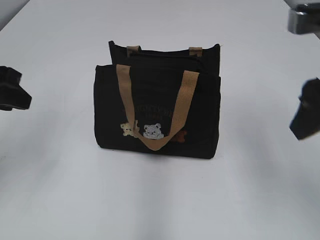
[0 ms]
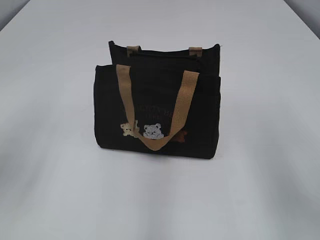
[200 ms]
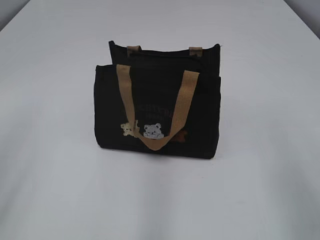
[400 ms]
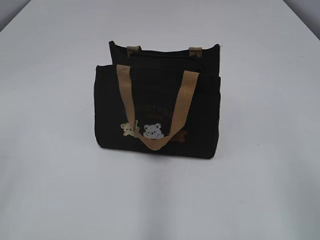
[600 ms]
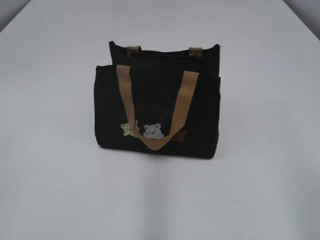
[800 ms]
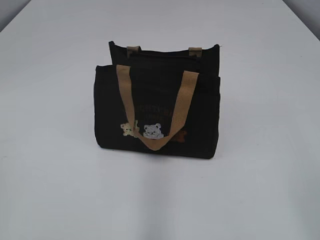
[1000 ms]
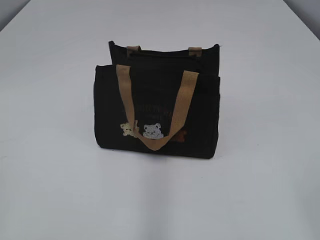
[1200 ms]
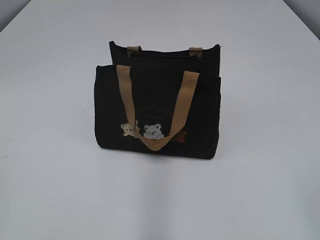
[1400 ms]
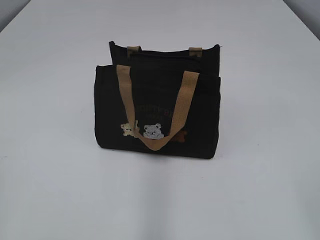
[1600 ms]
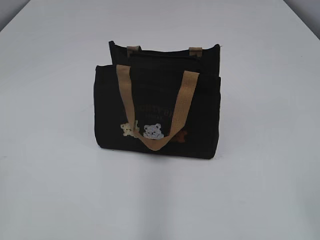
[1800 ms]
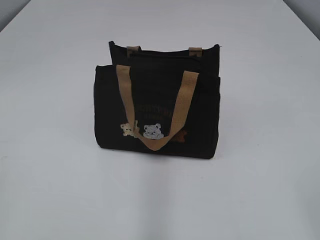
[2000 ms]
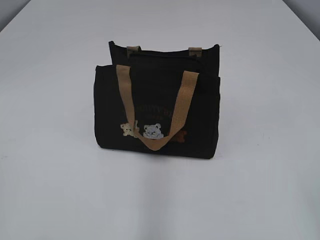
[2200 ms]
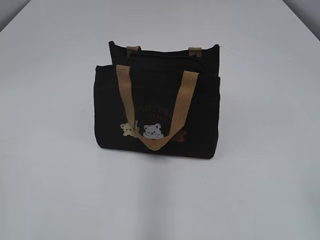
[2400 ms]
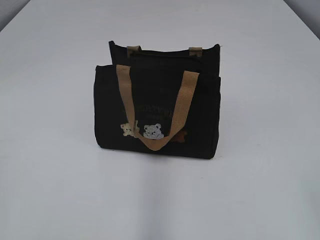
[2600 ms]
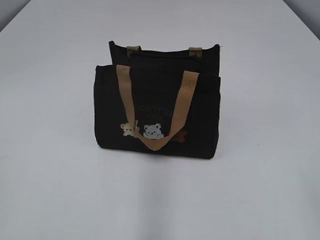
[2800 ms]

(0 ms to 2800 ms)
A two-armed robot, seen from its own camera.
0 ms - 1400 ms: Both grippers travel together backward, some 25 cm.

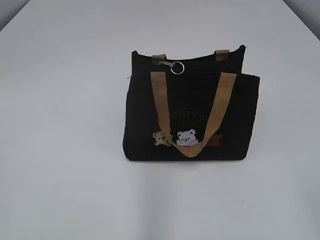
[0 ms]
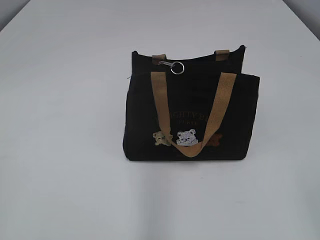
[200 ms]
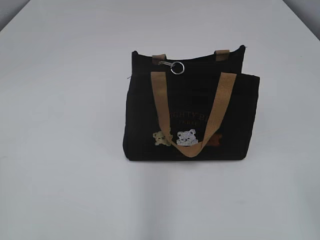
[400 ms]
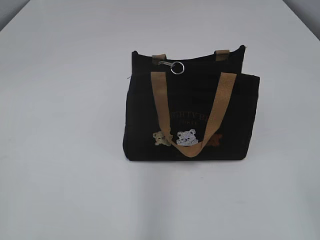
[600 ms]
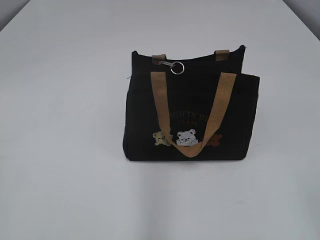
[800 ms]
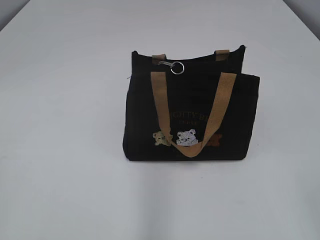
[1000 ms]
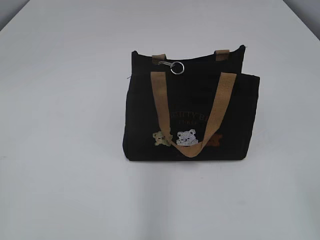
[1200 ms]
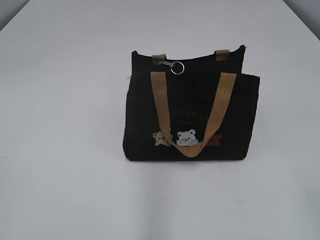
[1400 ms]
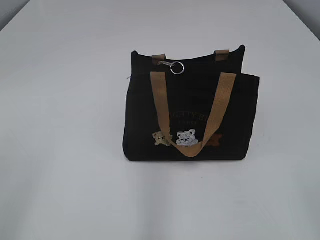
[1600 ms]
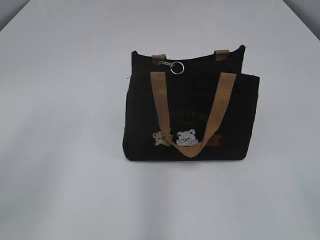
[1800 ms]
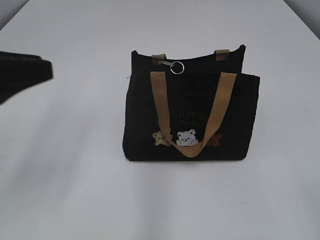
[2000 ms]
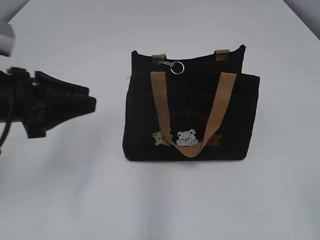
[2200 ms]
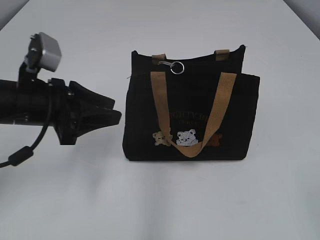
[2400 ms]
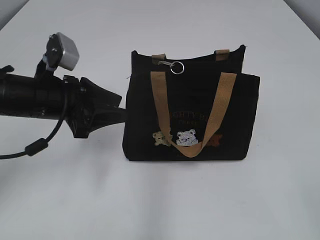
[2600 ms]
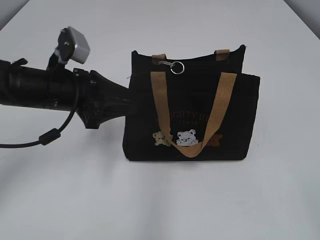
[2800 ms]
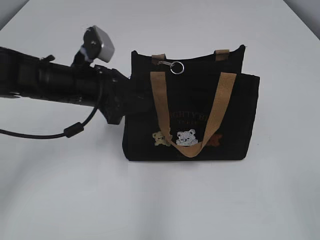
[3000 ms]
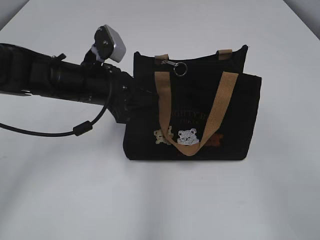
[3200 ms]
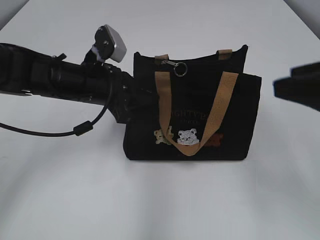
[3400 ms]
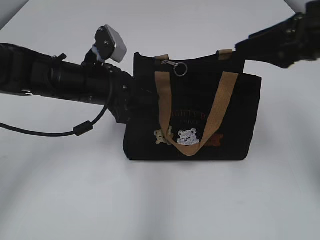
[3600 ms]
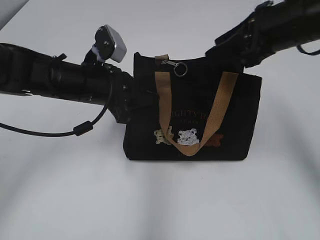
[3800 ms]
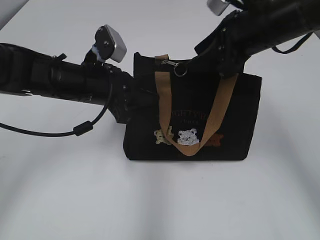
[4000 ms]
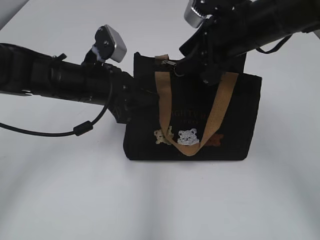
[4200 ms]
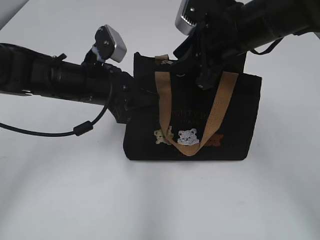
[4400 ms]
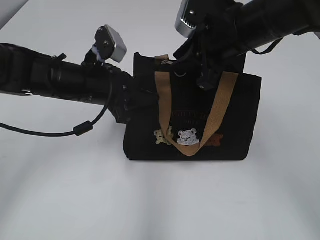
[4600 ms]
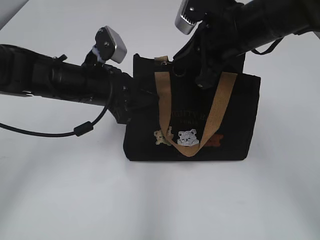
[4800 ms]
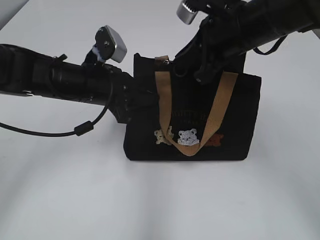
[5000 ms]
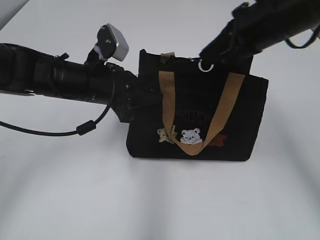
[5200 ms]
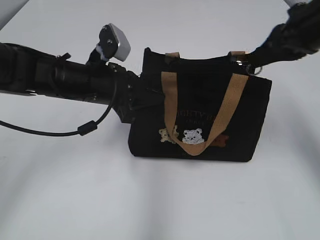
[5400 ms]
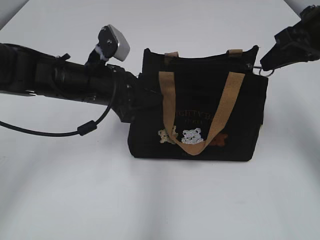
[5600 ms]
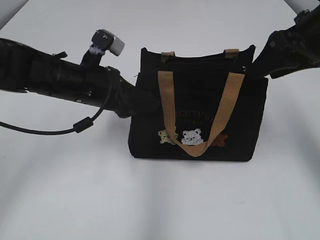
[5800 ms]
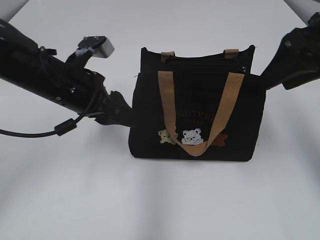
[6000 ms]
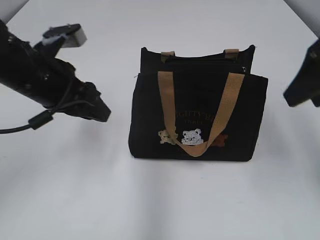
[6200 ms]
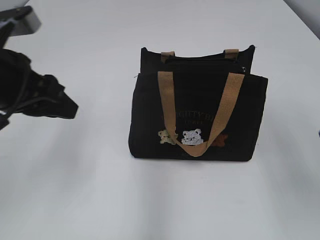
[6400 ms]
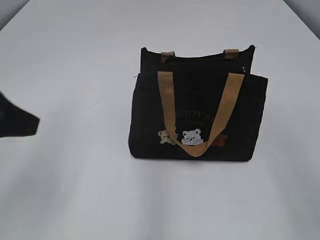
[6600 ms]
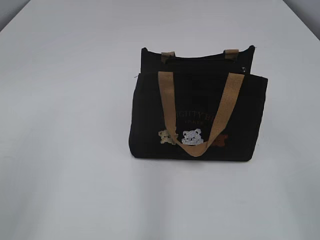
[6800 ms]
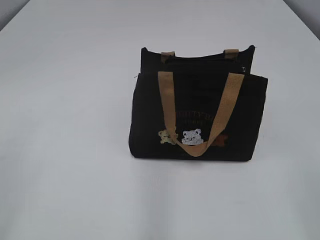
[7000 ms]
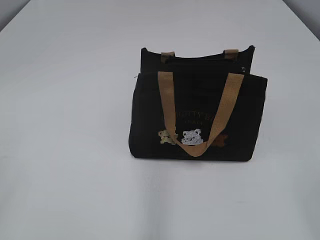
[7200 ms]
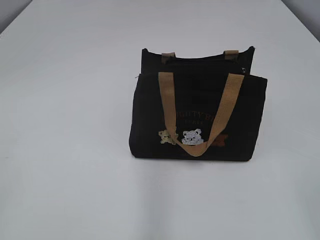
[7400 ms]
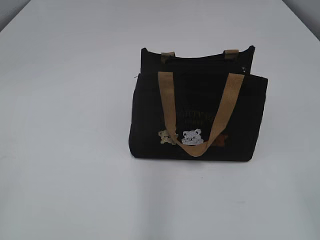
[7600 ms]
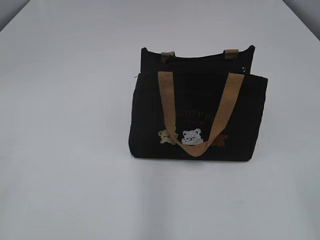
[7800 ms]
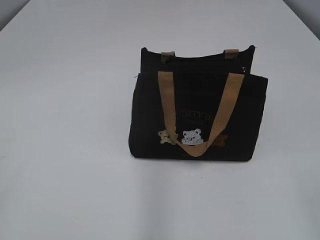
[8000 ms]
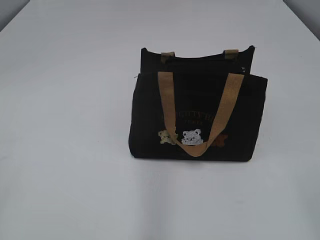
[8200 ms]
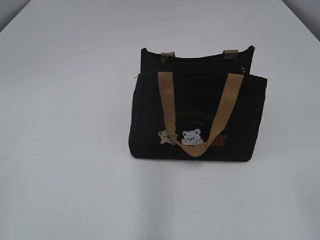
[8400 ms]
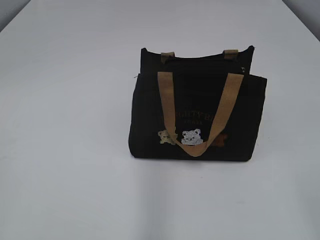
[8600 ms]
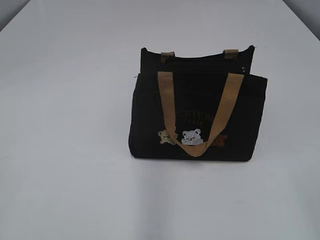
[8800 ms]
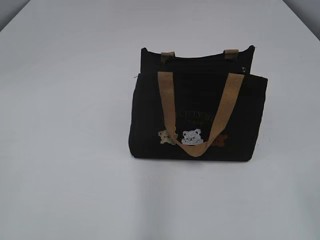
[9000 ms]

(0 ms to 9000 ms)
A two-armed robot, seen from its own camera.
Step, 0 ms - 5600 ms: Pull open the zipper with your right hand.
Step, 5800 ms - 6000 ms: Hold the bag with your left hand.
1600 ms - 3000 ms: The left gripper goes approximately 35 cm forward and to the right, and opens up.
3000 ms - 4400 ms: The left gripper closes its fingers. The right gripper travels forward and to the left by some 40 cm.
4400 ms - 6000 ms: The left gripper opens its fingers, while the right gripper heads to the right, covering roughly 10 cm, and closes, then opens again.
6000 ms - 7600 ms: The left gripper goes about 35 cm backward and to the left. Meanwhile the right gripper heads backward, covering some 30 cm.

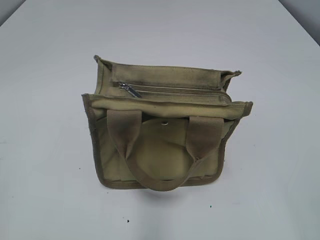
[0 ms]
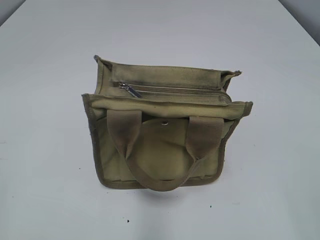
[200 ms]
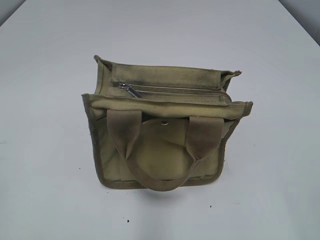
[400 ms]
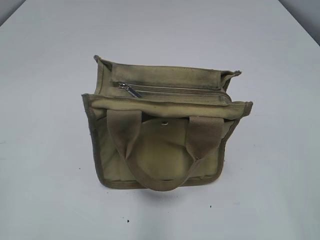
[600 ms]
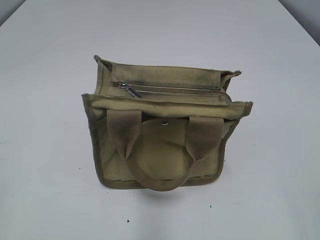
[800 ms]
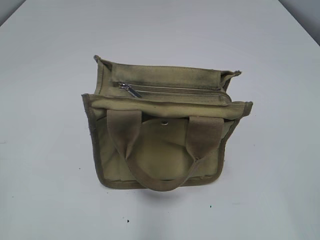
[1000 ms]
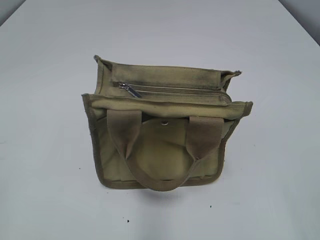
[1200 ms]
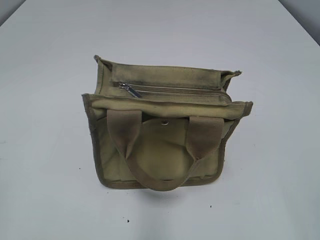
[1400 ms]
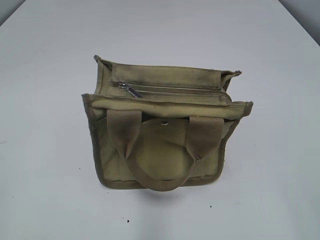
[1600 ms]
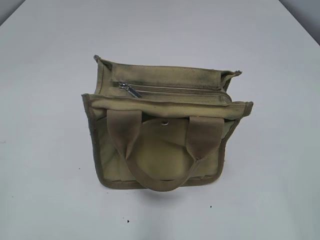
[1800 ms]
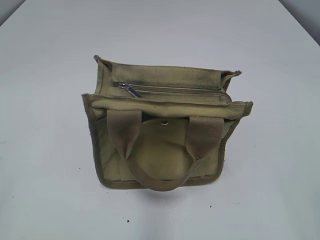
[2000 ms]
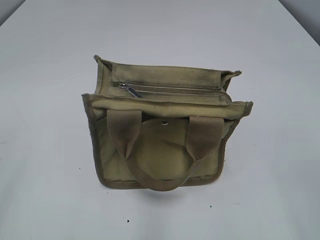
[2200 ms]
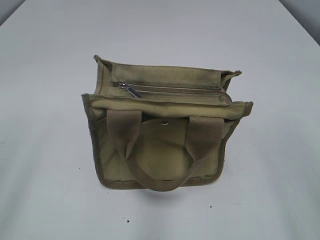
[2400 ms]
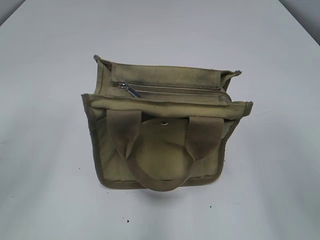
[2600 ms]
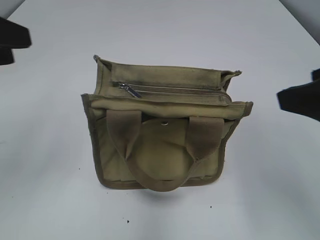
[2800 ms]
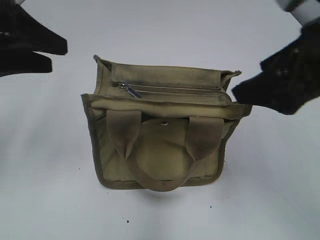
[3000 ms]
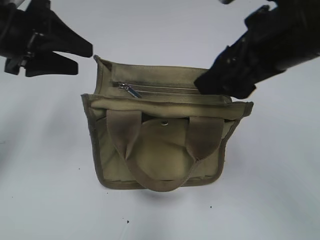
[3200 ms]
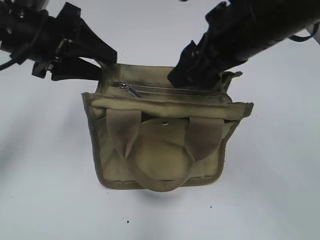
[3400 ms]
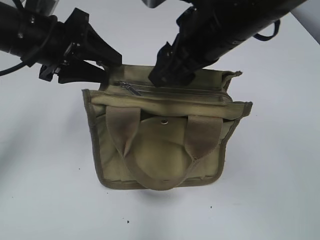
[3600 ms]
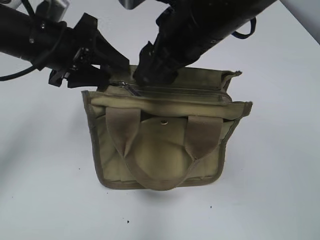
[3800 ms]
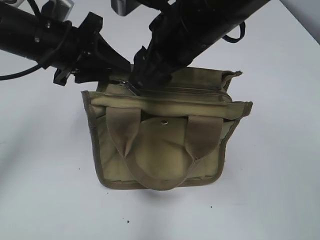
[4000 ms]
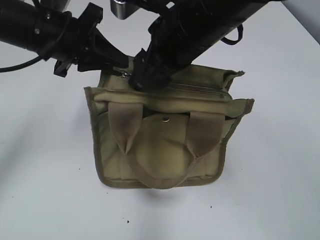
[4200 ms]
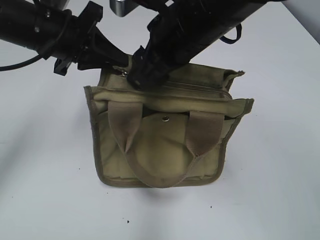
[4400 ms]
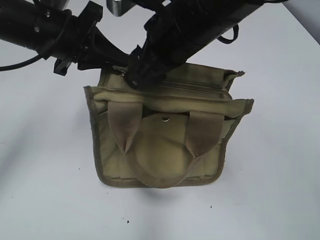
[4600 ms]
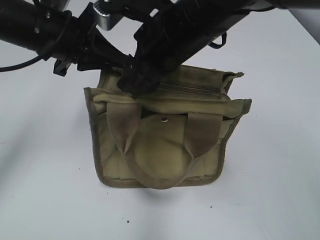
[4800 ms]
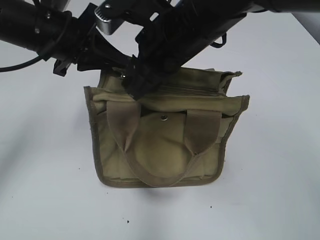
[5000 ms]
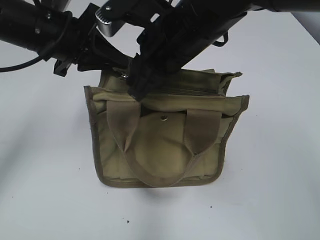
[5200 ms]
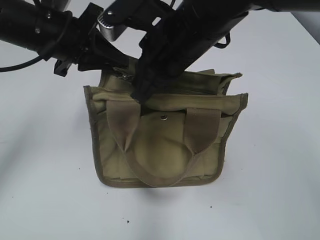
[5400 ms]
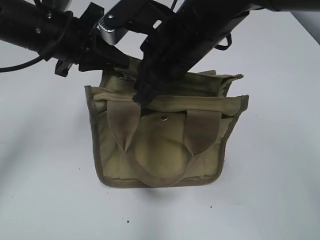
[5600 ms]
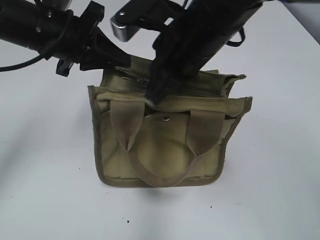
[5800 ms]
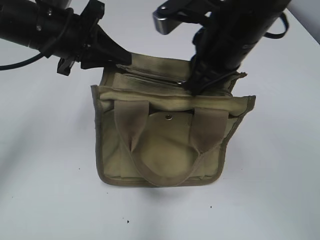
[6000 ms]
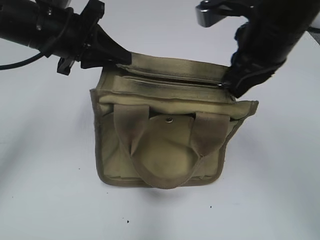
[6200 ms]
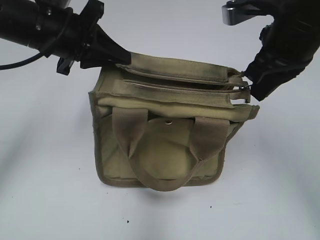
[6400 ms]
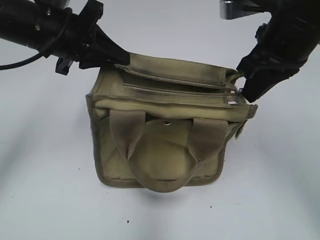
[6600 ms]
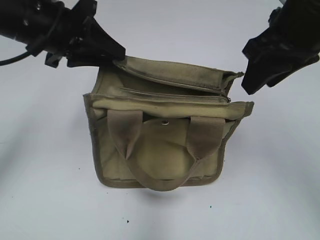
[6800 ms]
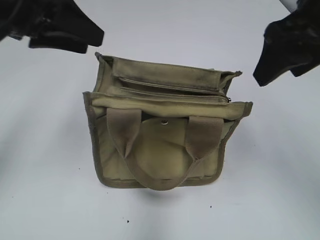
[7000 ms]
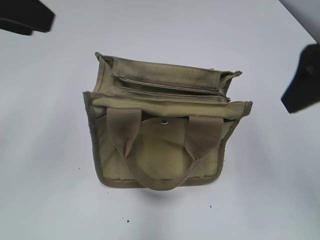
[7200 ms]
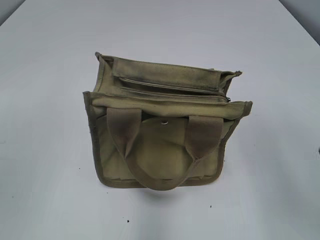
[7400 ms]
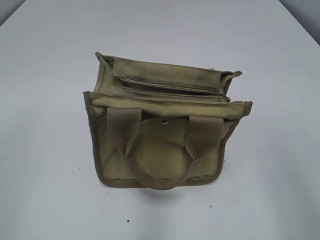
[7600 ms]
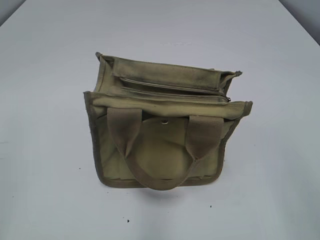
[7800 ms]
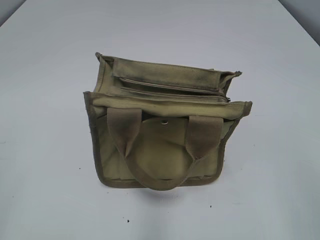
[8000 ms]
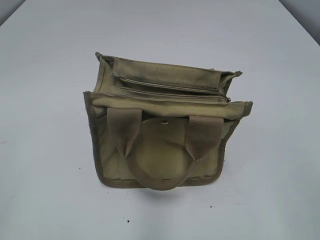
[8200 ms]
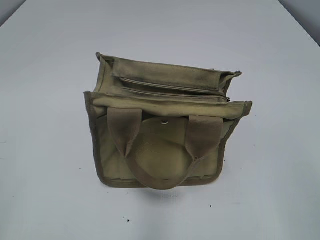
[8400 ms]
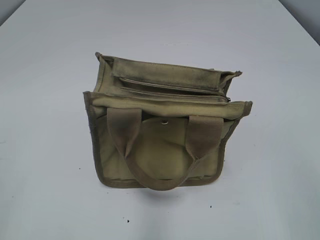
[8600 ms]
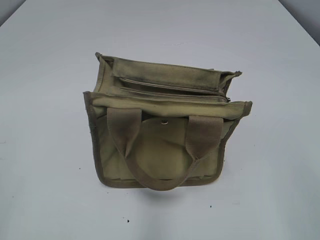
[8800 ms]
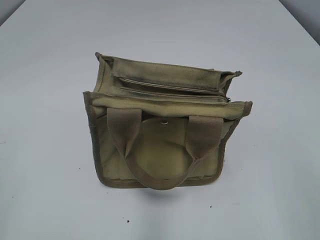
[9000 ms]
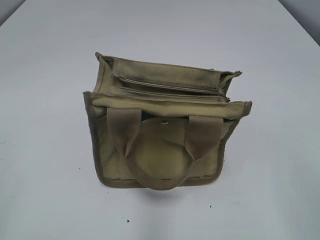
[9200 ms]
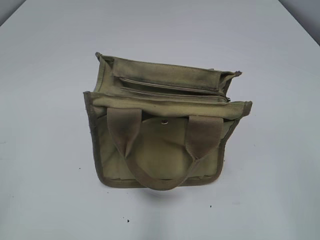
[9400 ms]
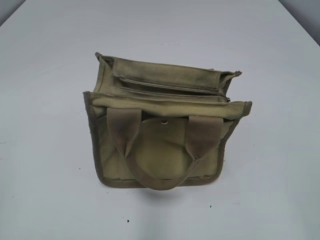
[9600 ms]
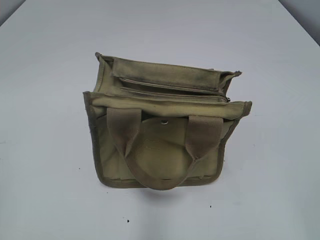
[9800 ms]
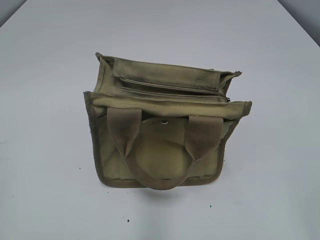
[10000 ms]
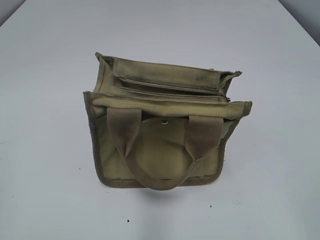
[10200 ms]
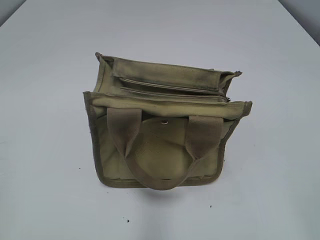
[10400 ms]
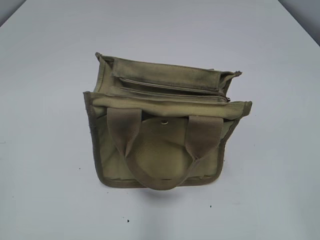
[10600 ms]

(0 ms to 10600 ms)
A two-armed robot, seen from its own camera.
Step, 0 ms - 6400 ms: Pull open the zipper with your right hand.
Step, 6600 ms - 7000 ms: Hold the bag with your left hand.
1600 ms - 3000 ms: The two grippers go approximately 20 cm forward.
3000 ms - 4600 ms: The left gripper moves forward and to the right, about 10 cm, and closes its fingers, while the right gripper is displaced to the left and forward by some 20 cm.
4600 ms - 6000 ms: The right gripper closes its fingers.
6000 ms - 7600 ms: The right gripper goes about 25 cm backward and to the right, and opens up, while the left gripper travels backward, to the left and upward by some 30 cm, and opens its fingers.
